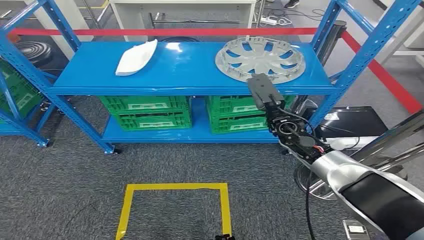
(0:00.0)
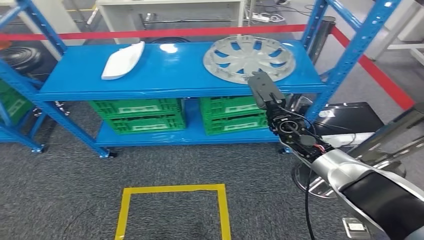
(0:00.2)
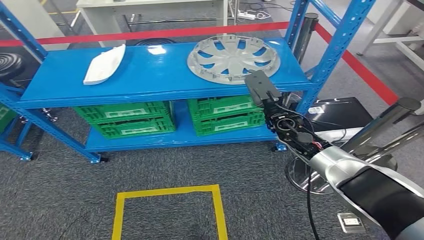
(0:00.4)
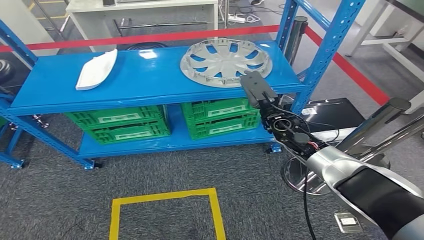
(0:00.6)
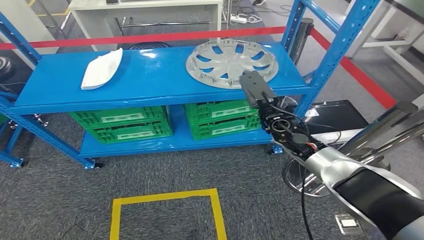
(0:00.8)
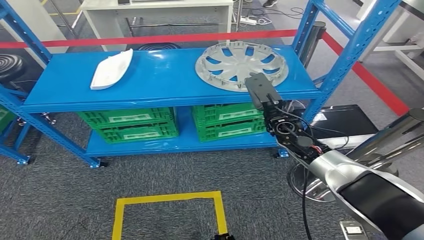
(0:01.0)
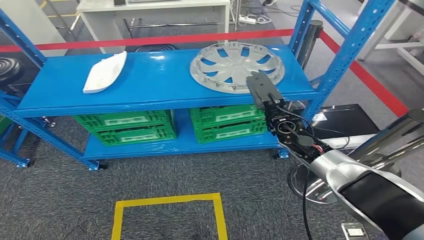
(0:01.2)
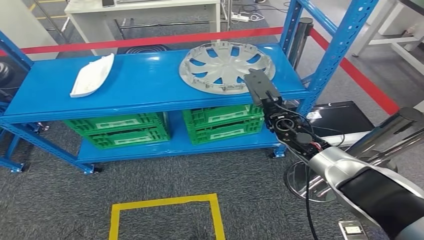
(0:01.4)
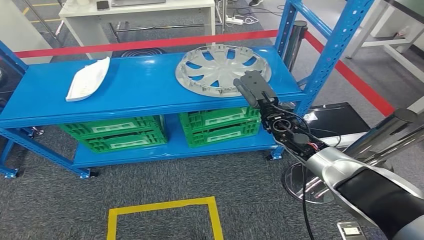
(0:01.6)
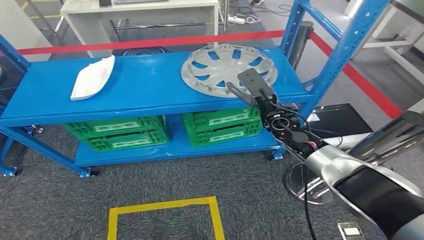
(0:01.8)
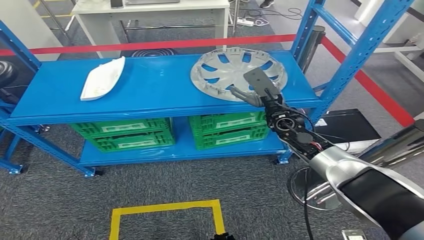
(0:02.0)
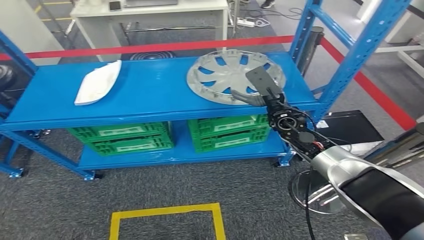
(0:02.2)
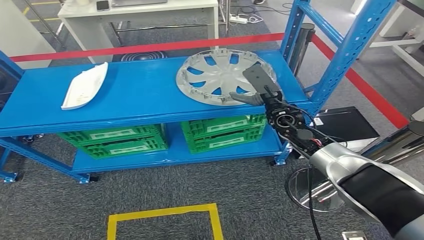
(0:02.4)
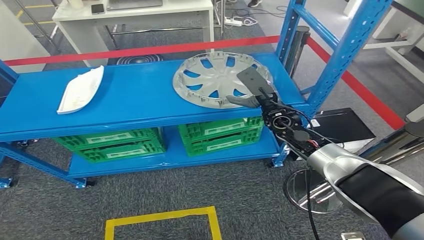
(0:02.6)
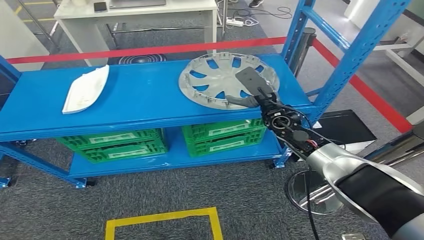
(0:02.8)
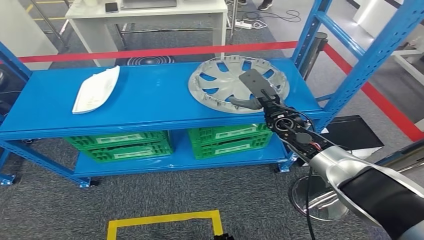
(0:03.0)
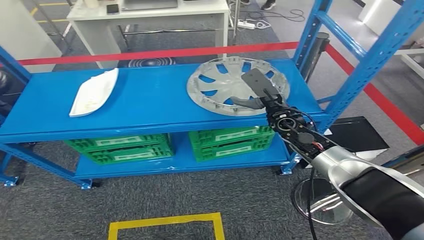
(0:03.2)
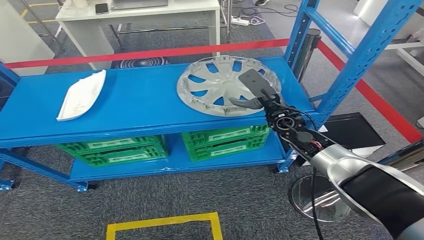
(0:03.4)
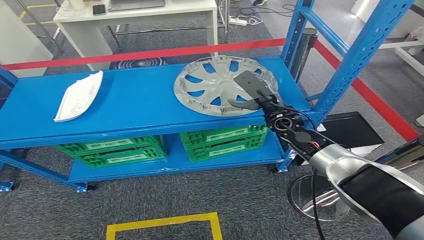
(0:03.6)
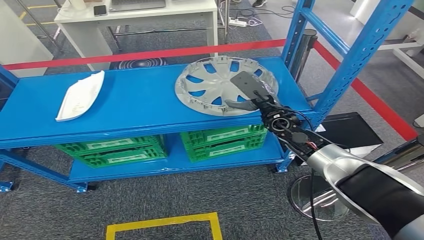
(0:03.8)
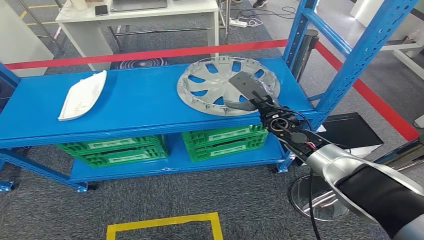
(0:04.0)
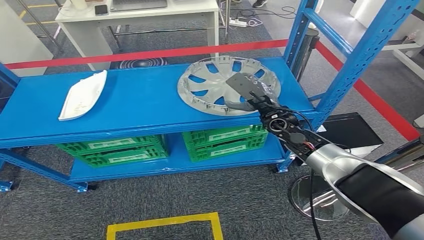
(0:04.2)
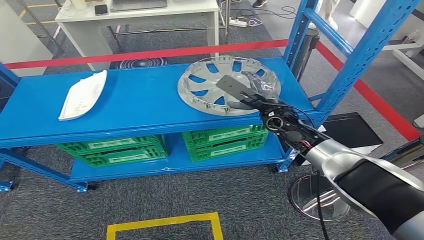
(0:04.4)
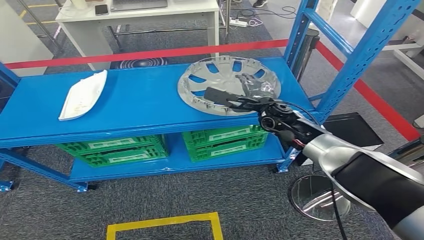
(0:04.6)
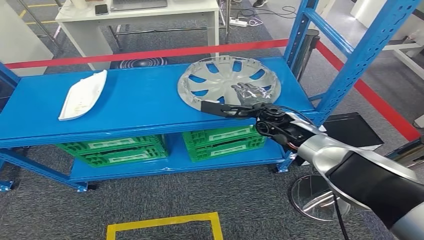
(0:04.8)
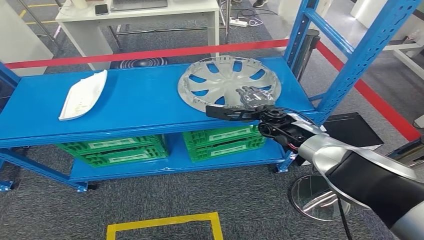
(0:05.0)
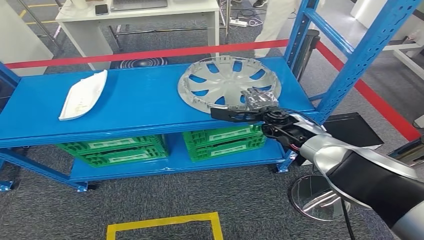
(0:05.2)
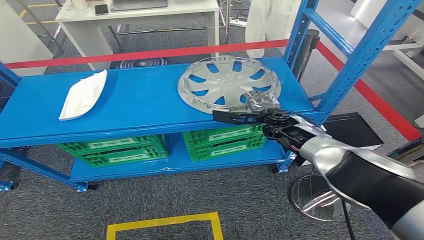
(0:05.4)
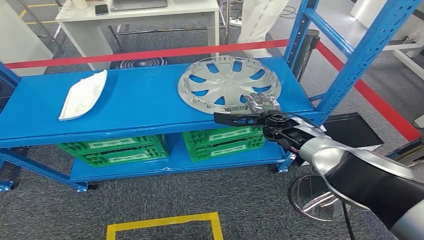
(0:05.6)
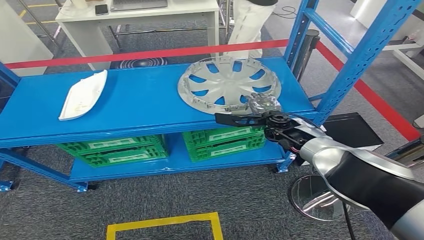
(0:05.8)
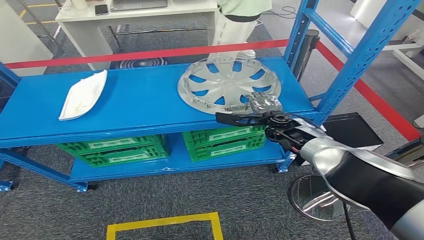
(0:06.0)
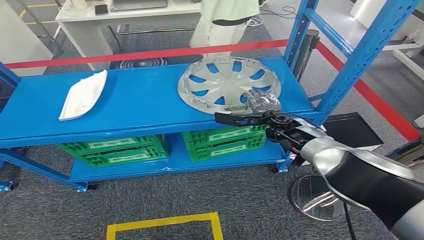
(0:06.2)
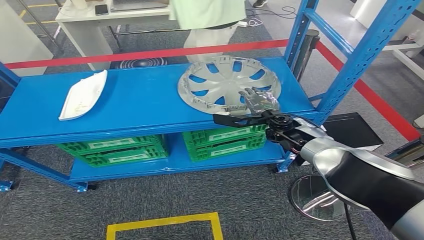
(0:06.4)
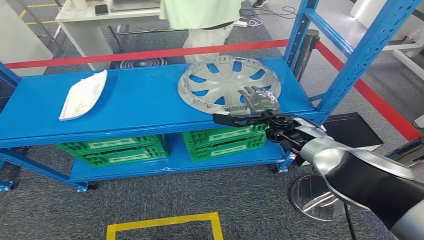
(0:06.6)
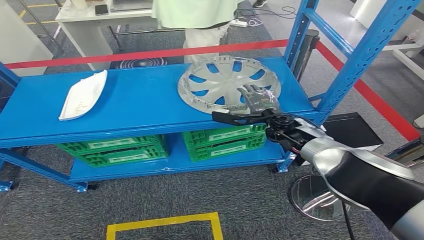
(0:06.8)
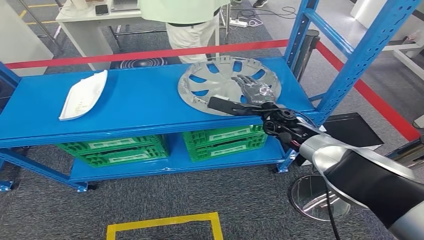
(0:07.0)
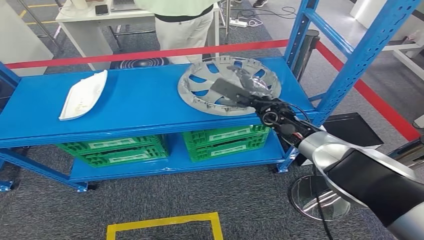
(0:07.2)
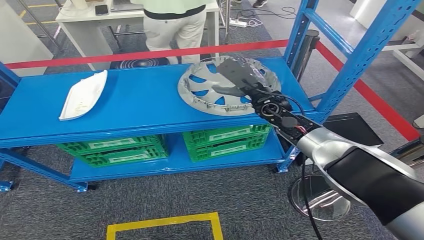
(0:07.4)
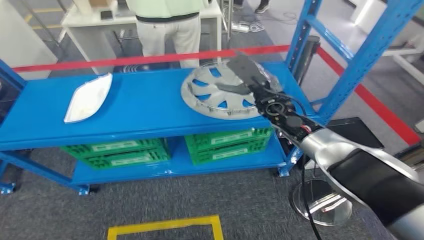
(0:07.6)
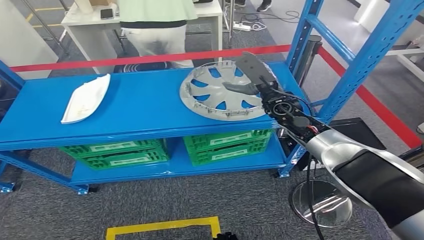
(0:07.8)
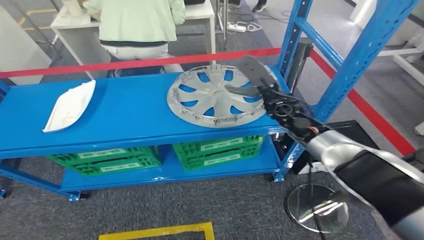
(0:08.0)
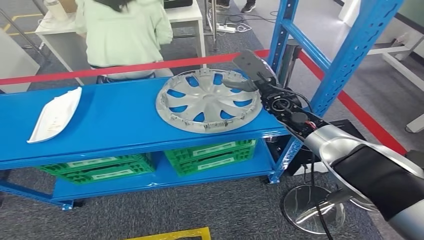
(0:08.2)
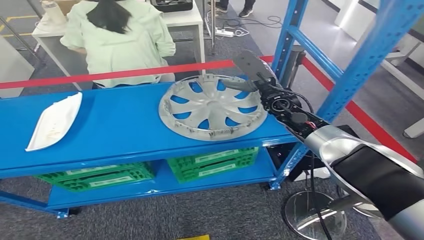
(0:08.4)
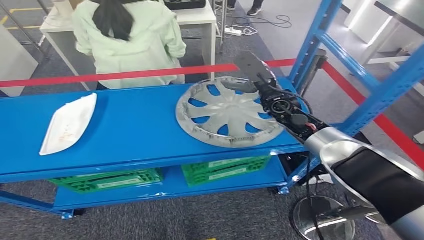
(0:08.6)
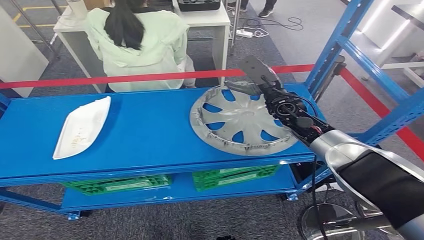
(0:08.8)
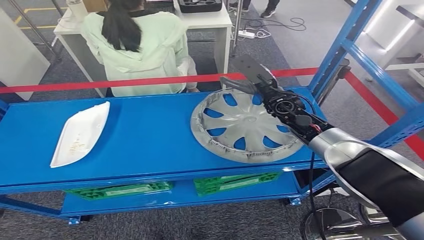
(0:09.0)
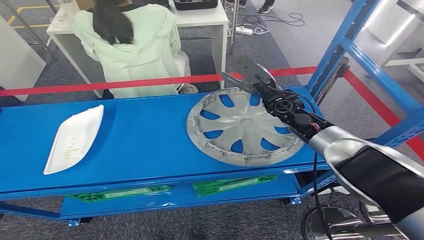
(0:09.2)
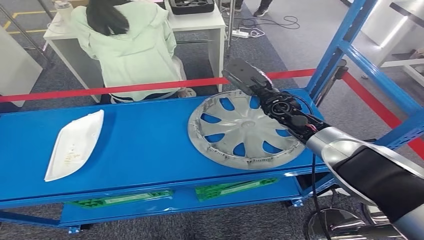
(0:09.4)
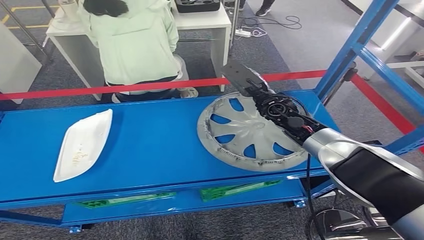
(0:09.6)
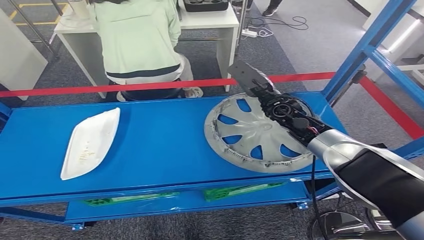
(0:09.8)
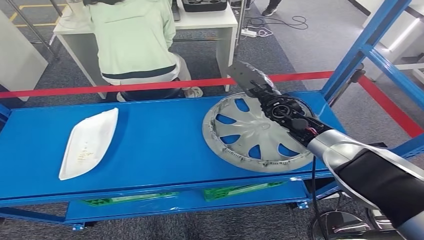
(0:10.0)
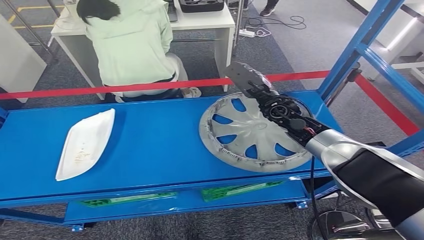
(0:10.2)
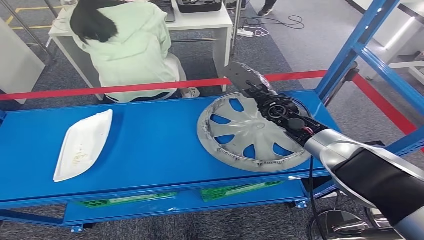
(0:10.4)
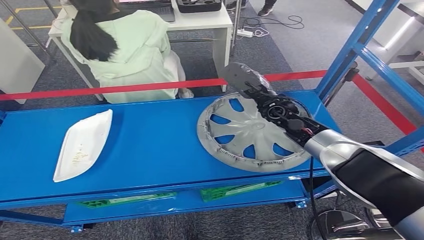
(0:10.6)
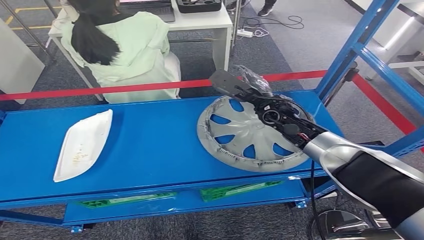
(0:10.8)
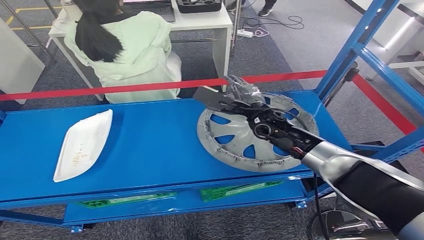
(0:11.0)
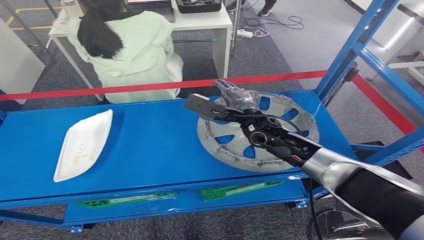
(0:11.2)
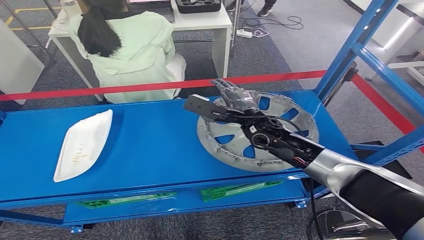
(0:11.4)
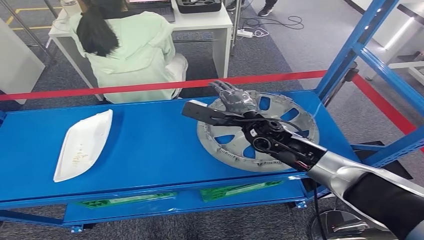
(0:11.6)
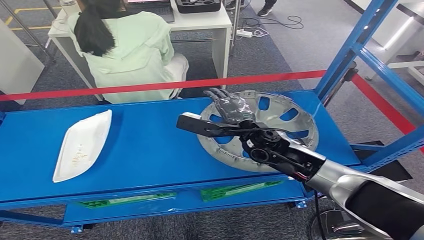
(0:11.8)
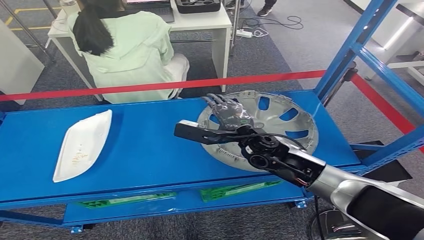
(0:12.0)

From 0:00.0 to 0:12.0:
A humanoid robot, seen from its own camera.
From 0:04.4 to 0:06.0: The right hand changes place by approximately 5 cm.
From 0:10.4 to 0:12.0: The right hand heads backward and to the left, covering approximately 15 cm.

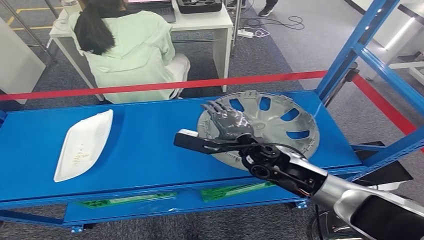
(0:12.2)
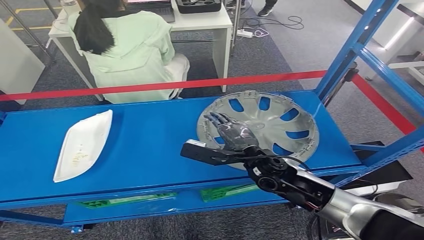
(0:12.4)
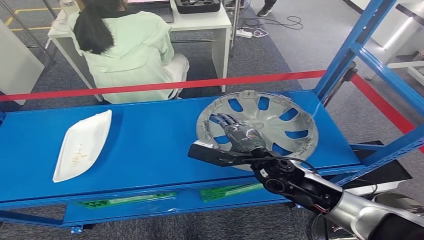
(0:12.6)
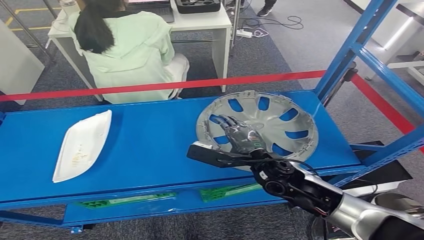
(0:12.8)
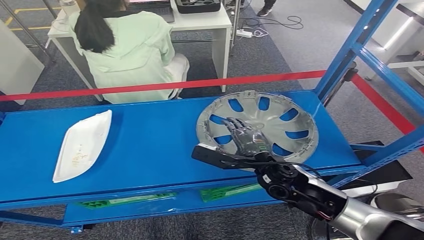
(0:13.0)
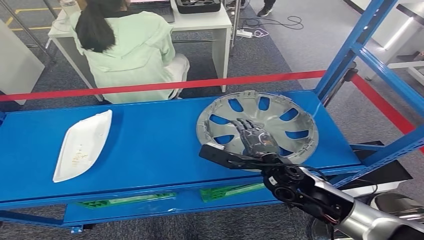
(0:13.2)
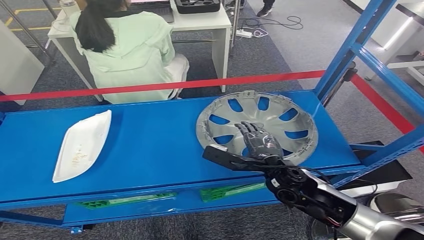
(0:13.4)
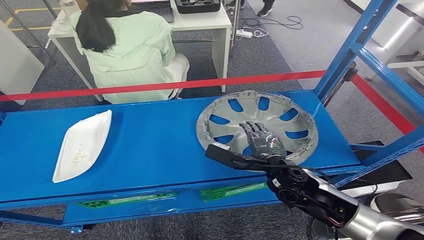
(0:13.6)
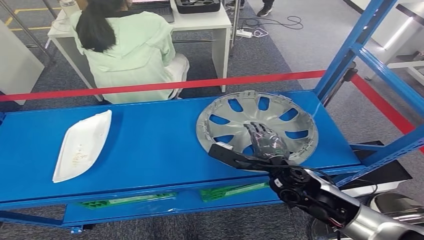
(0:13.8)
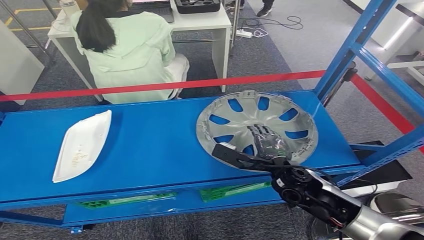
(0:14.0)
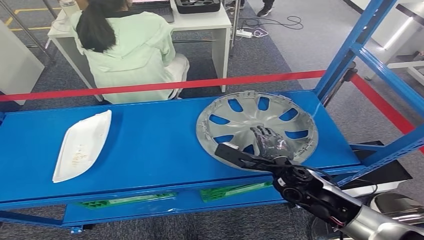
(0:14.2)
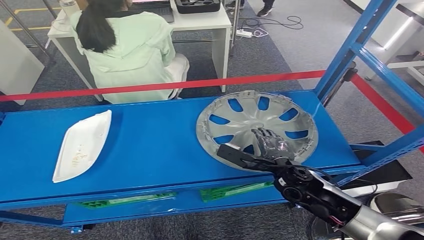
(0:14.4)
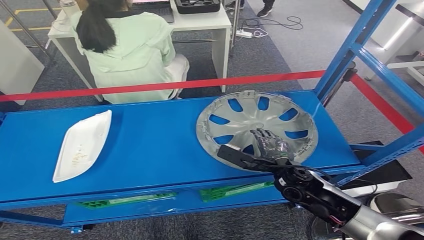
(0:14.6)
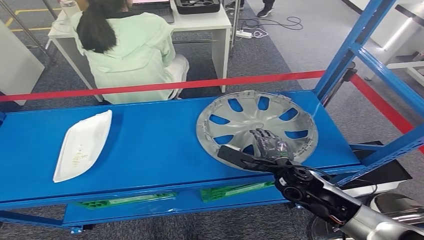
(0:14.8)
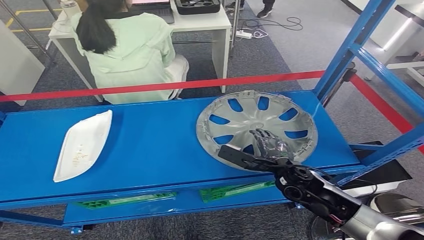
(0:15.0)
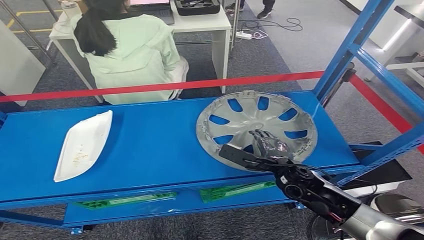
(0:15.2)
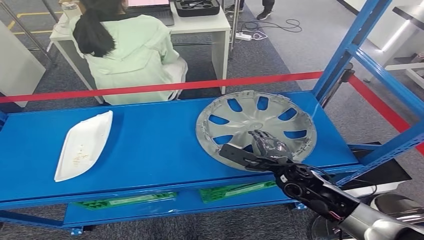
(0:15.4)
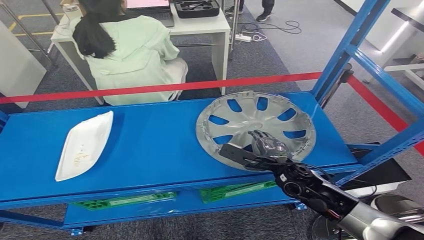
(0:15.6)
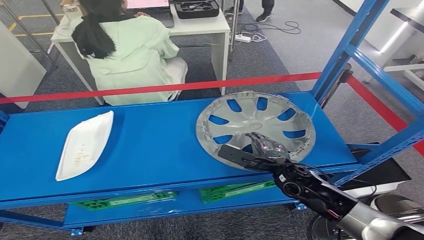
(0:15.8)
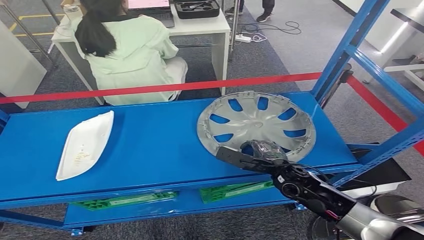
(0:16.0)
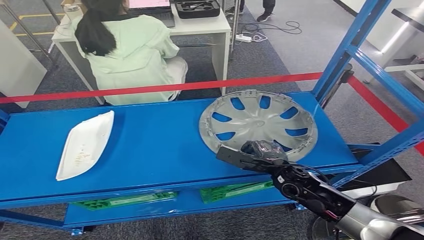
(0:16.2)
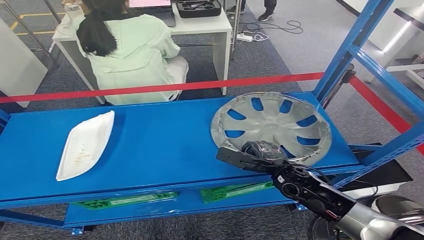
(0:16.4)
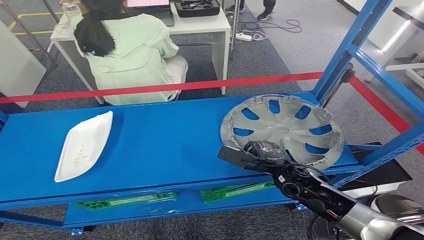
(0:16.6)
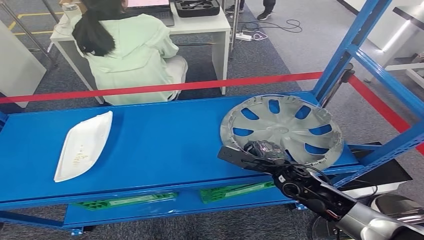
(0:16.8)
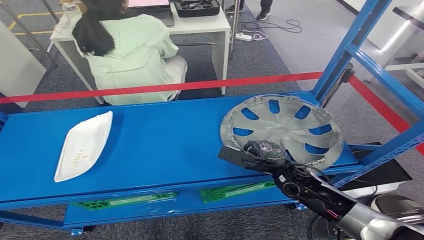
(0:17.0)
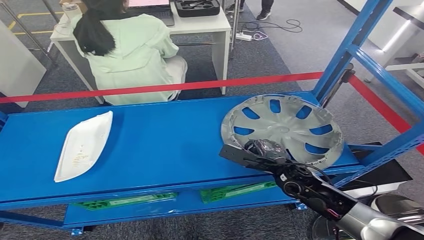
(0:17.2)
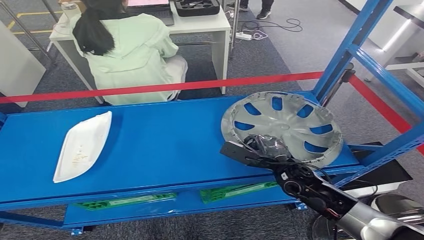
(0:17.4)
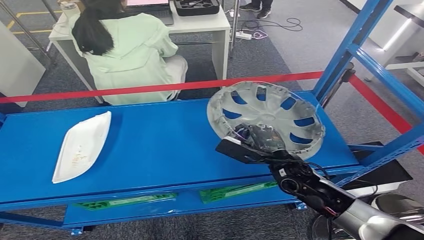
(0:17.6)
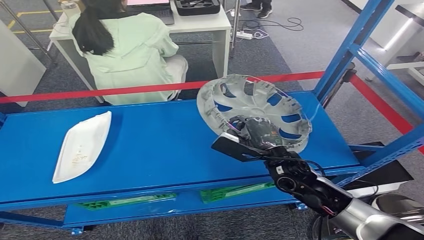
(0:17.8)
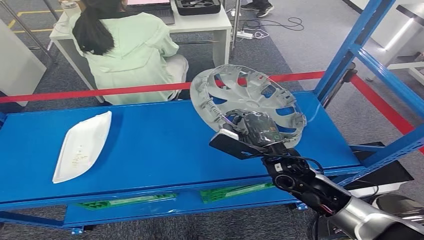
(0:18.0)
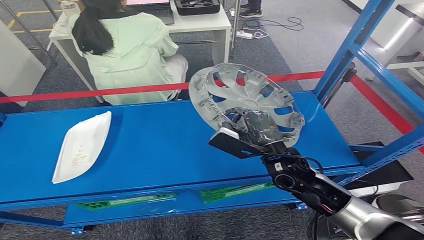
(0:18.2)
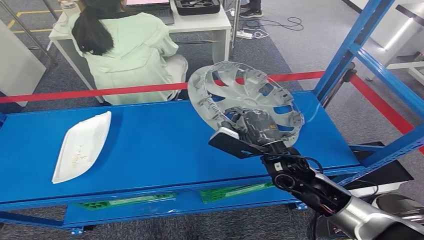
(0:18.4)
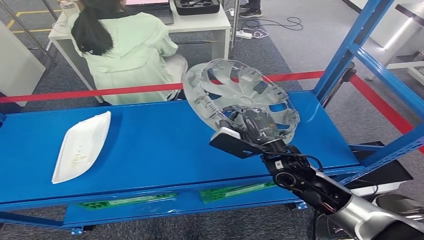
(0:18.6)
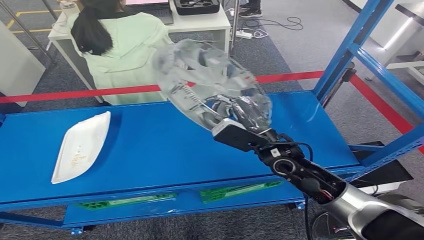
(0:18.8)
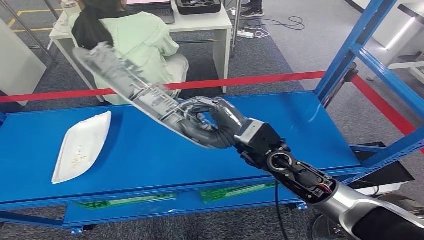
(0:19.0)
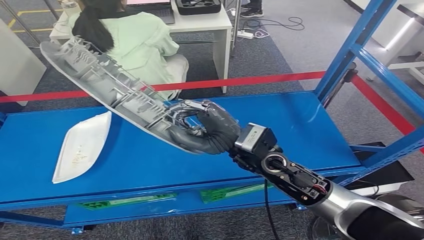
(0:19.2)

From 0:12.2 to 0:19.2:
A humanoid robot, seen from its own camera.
Step, from 0:12.2 to 0:18.2: Pick up the small component from the shelf.
From 0:12.2 to 0:13.6: The right hand goes roughly 5 cm backward.
From 0:13.6 to 0:16.4: The hands make only small movements.
From 0:17.8 to 0:19.2: The right hand moves upward and to the left, about 10 cm.
